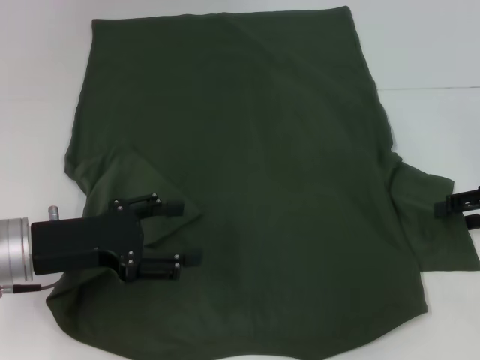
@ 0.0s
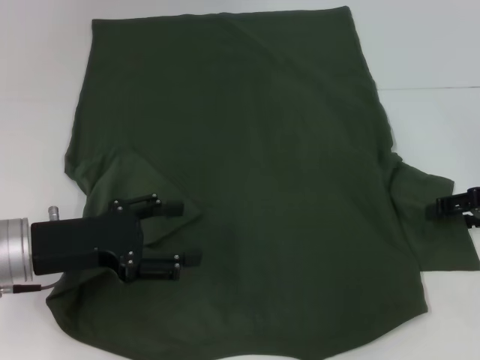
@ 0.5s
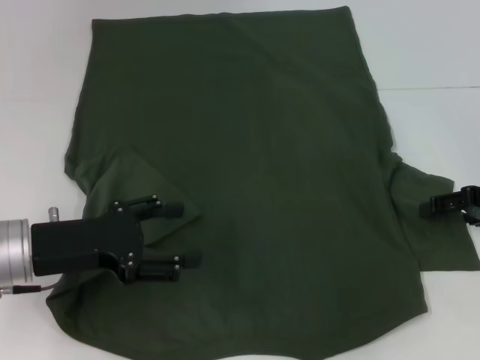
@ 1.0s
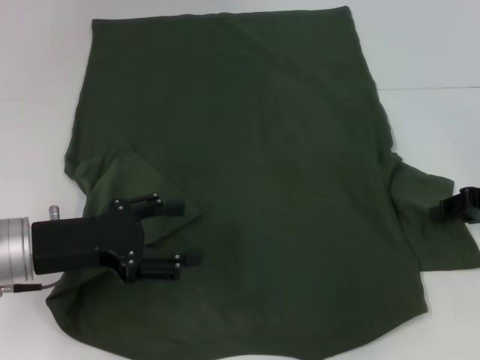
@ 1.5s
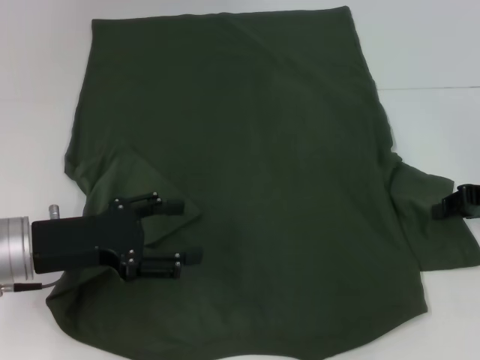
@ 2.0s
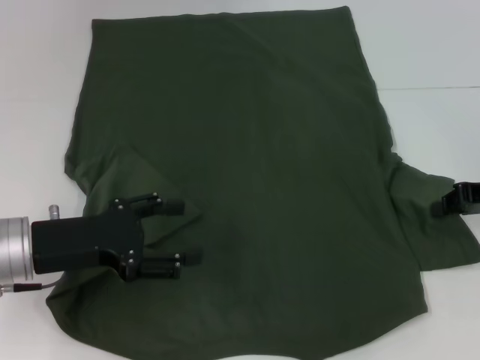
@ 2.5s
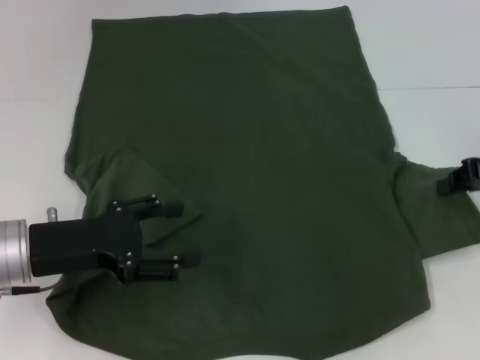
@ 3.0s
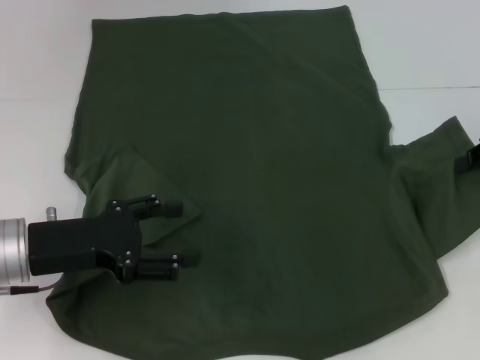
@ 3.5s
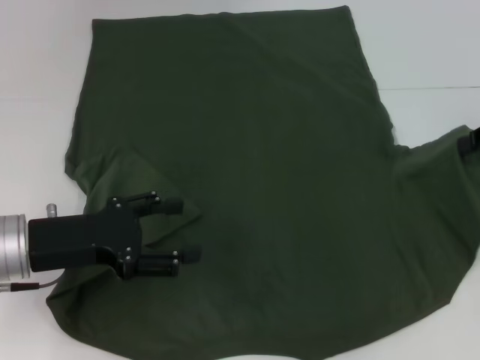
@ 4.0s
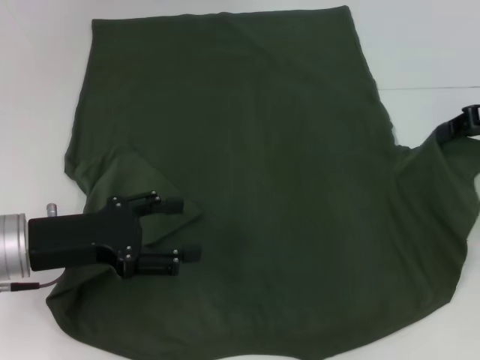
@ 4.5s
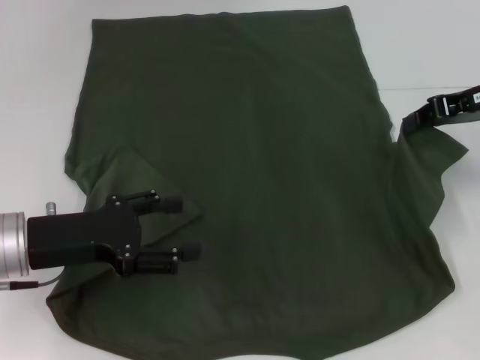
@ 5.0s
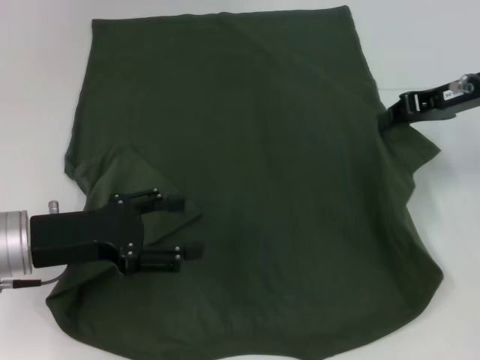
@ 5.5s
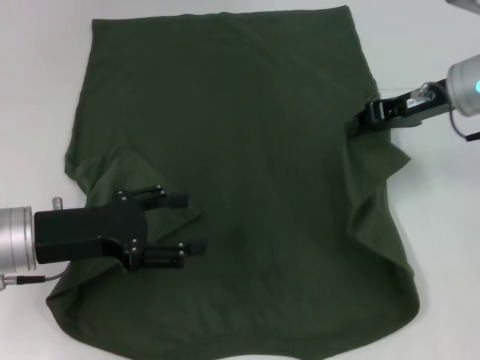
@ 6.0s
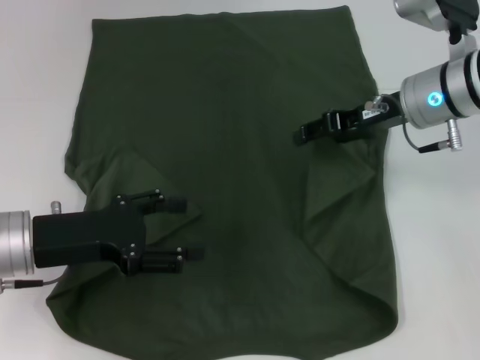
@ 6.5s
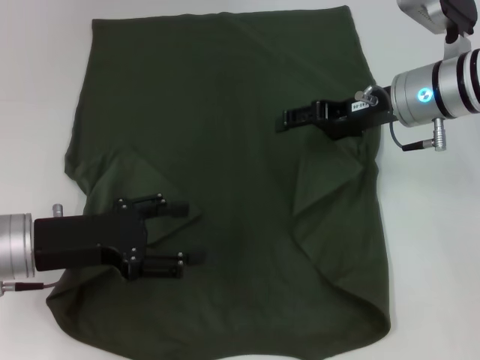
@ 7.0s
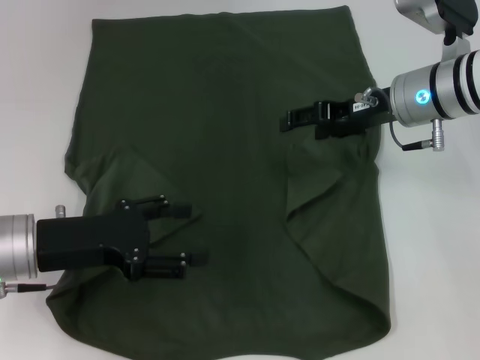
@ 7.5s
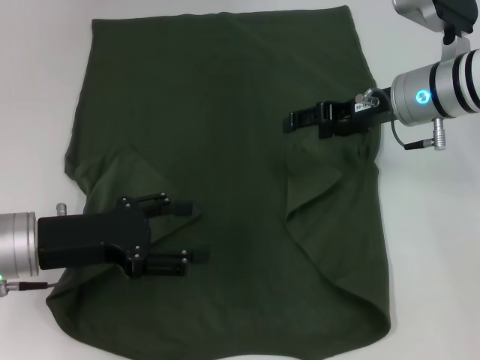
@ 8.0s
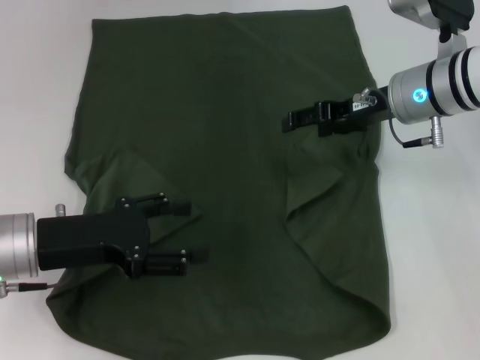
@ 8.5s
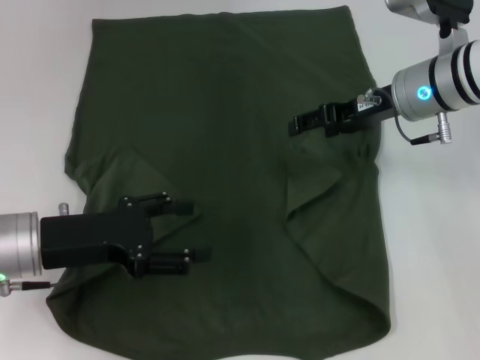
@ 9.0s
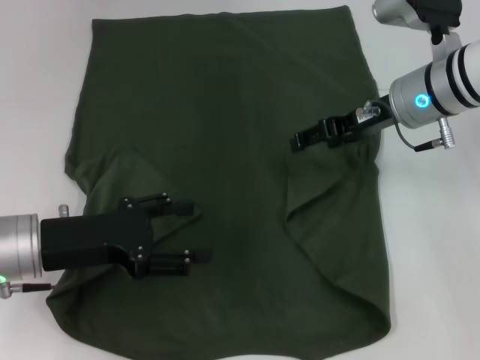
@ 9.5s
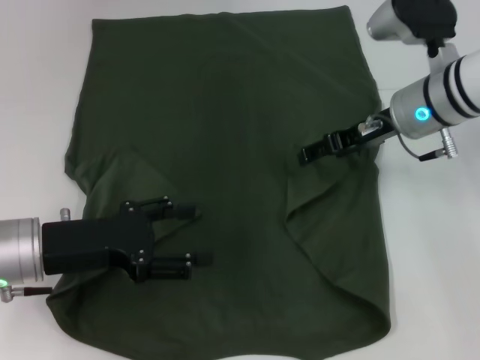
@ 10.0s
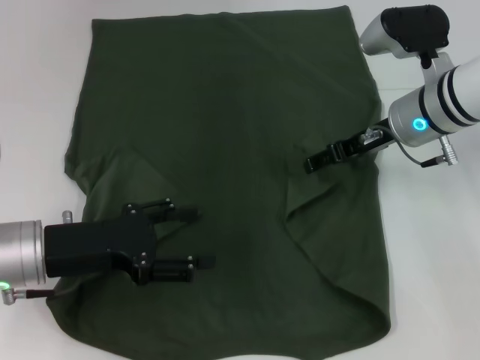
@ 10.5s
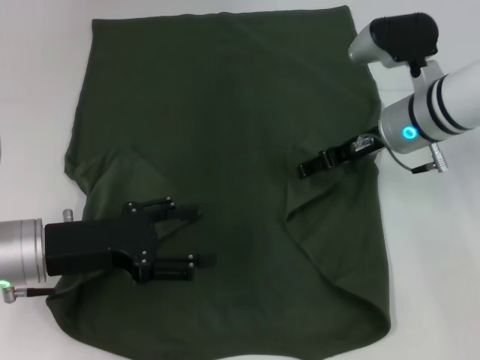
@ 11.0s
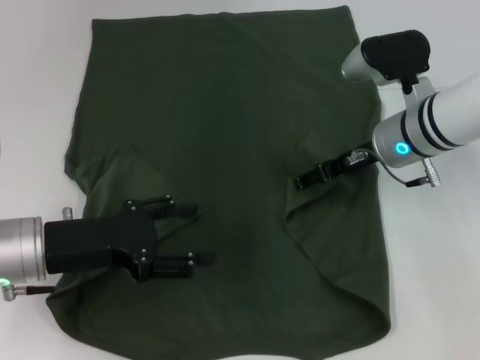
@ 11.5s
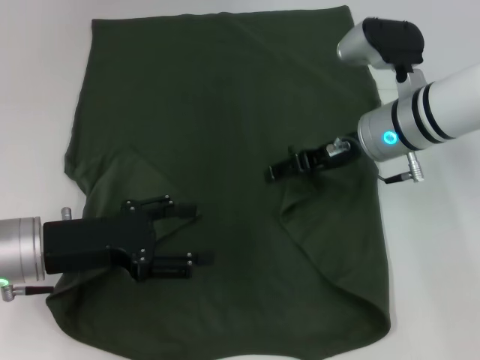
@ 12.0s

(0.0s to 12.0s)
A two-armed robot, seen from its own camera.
2.0s - 4.0s: The right gripper moves upward, approximately 5 cm.
4.0s - 6.0s: The right gripper goes approximately 10 cm to the left.
6.0s - 8.0s: The right gripper changes place by approximately 5 cm, and opens.
8.0s - 10.0s: There are only small adjustments of the grippers.
10.0s - 12.0s: The grippers stay close to where they were, moving slightly.

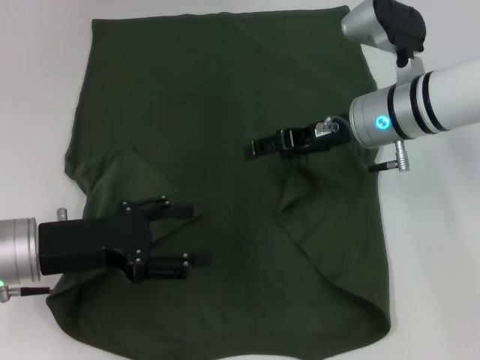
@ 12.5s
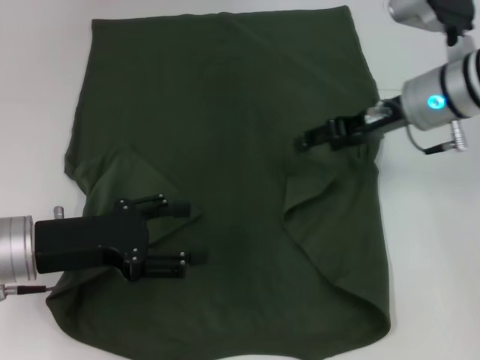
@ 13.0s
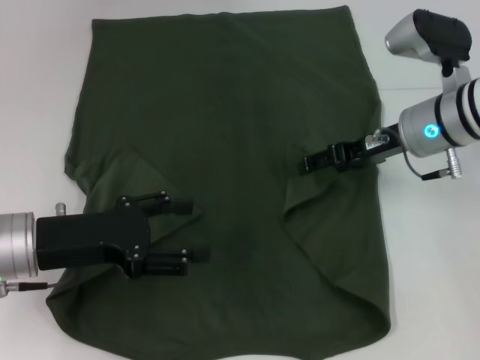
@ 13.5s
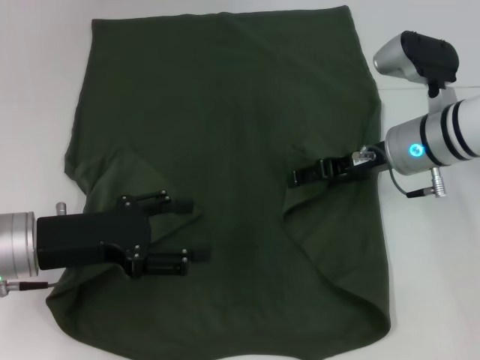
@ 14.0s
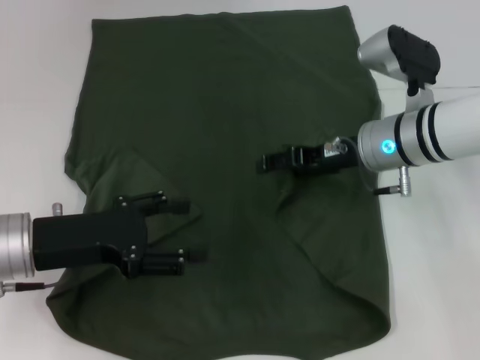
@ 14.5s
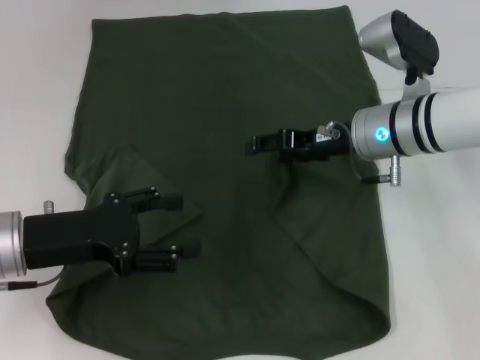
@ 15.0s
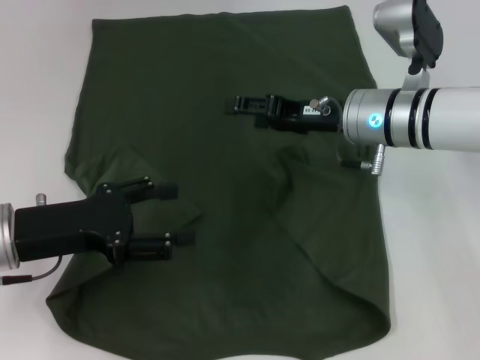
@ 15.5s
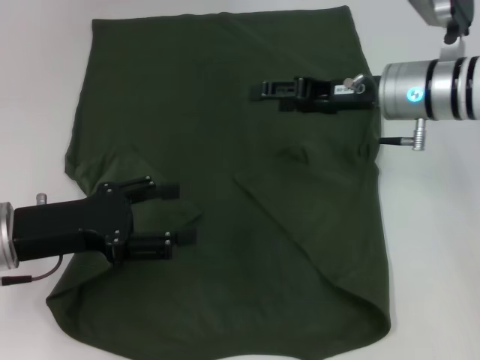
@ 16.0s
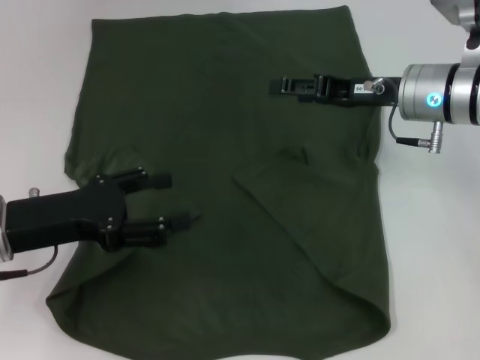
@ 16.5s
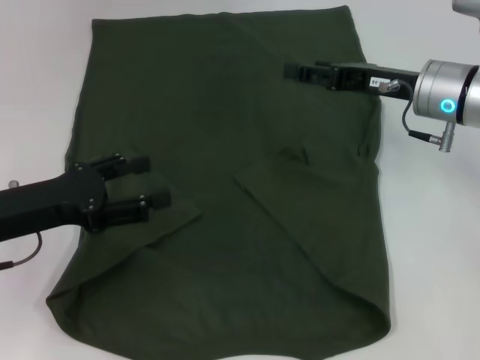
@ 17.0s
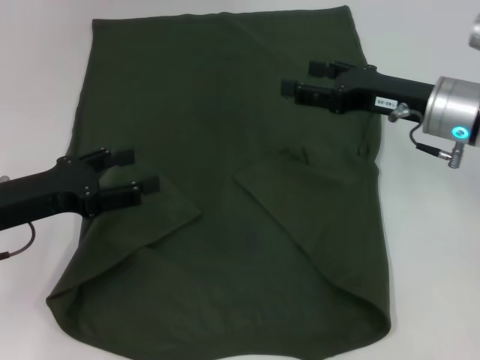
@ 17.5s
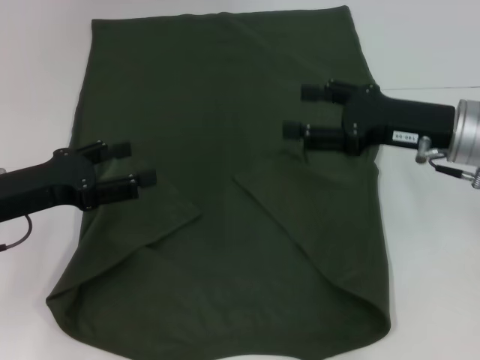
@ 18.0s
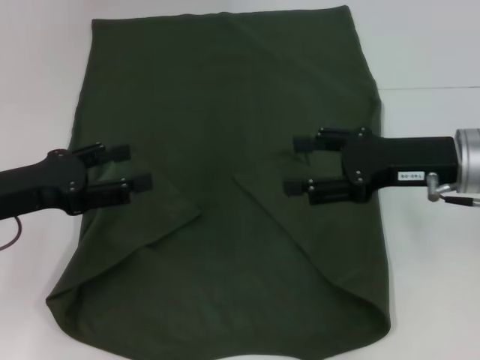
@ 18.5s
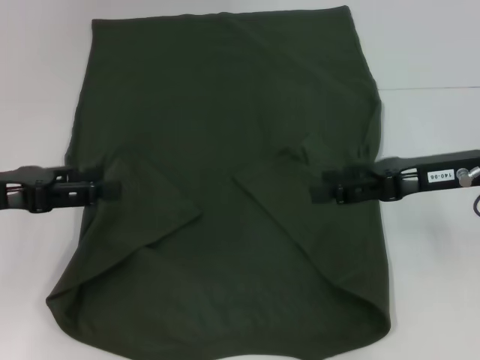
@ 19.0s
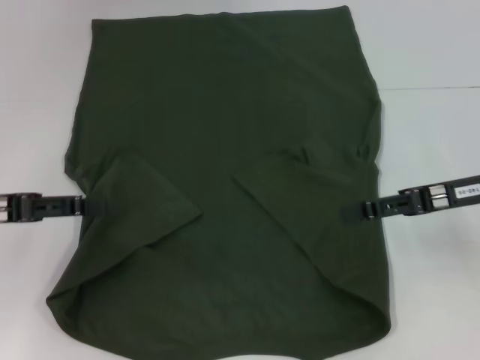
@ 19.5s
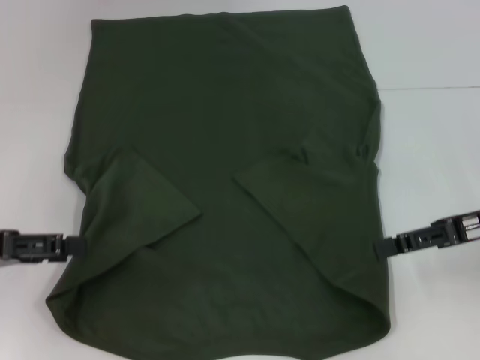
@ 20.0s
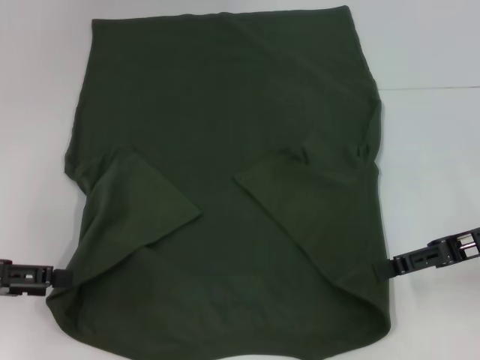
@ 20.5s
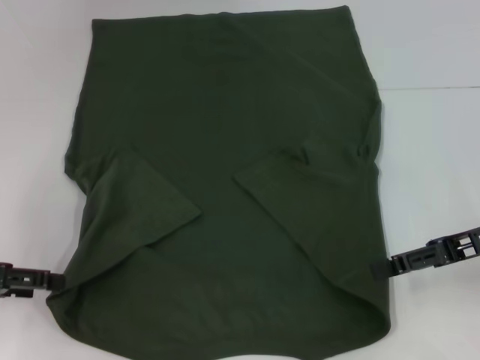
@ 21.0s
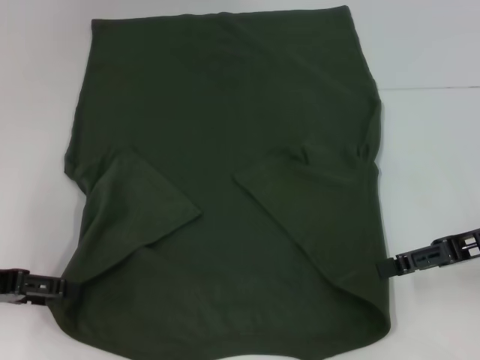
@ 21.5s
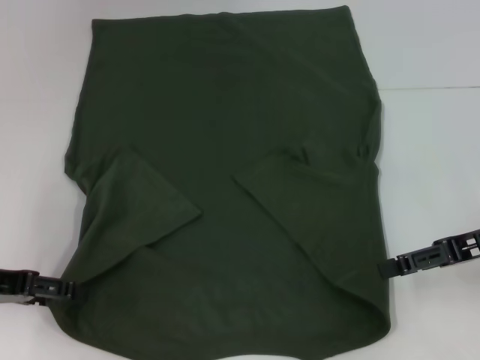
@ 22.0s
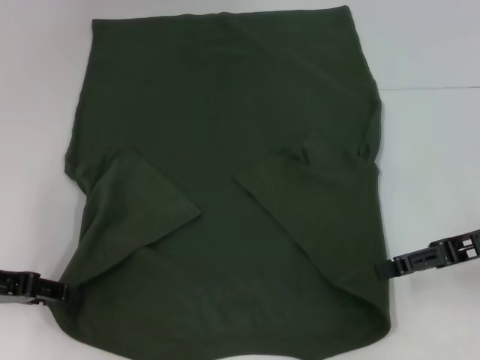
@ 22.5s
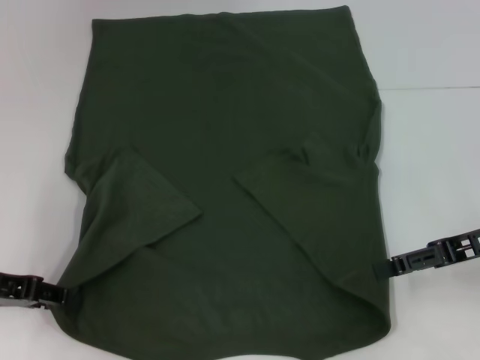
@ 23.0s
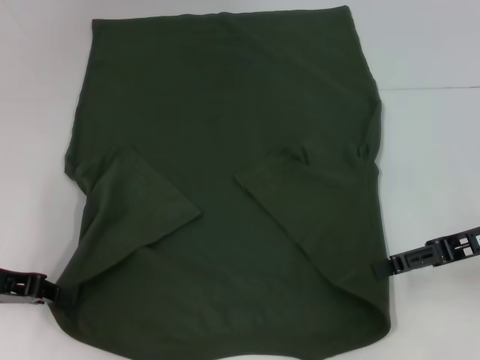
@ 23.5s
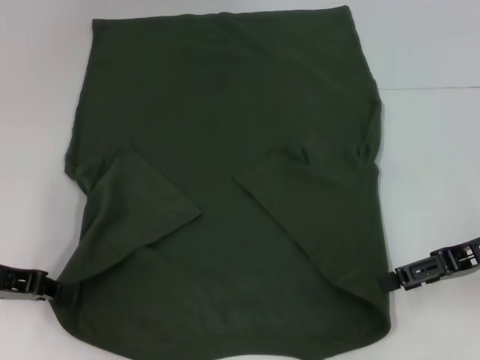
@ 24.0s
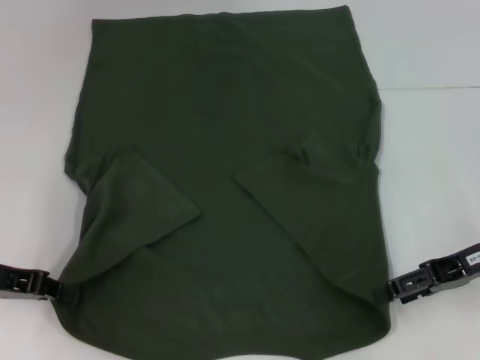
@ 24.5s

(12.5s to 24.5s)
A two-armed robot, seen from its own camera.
Step, 12.5s - 15.5s: Fold the bottom right sleeve with your right hand.
Step, 16.0s - 22.5s: Grab the bottom left corner with your left hand.
12.5s - 14.5s: There are only small adjustments of the grippers.
14.5s - 16.5s: The right gripper changes place by some 5 cm.
16.5s - 18.5s: The right gripper goes about 10 cm backward.
18.5s - 20.5s: The left gripper goes some 5 cm to the left. Meanwhile the right gripper heads to the right, covering some 5 cm.
20.5s - 22.5s: There are only small adjustments of the grippers.
22.5s - 24.5s: The left gripper closes.

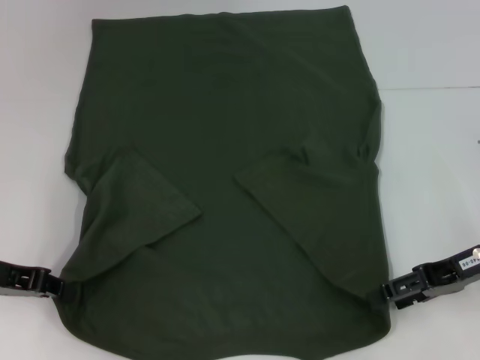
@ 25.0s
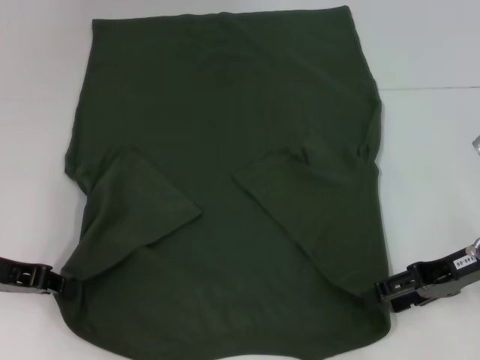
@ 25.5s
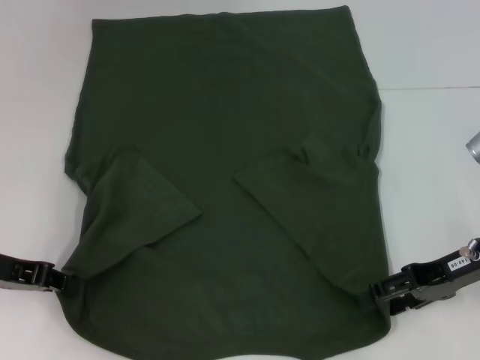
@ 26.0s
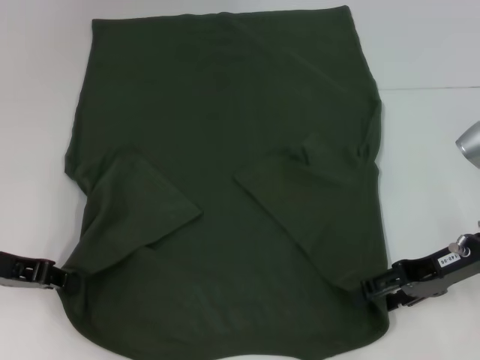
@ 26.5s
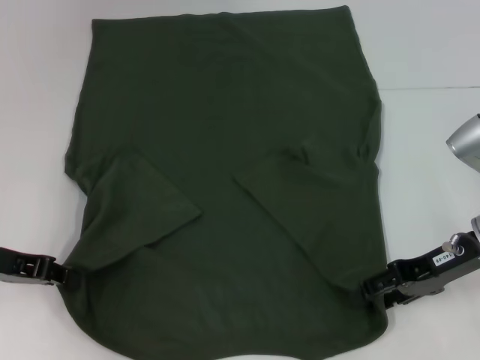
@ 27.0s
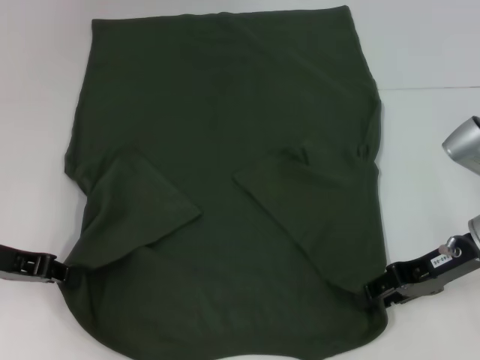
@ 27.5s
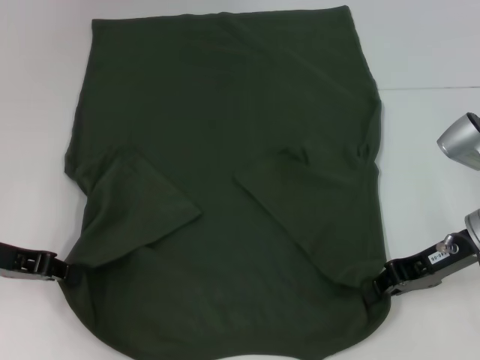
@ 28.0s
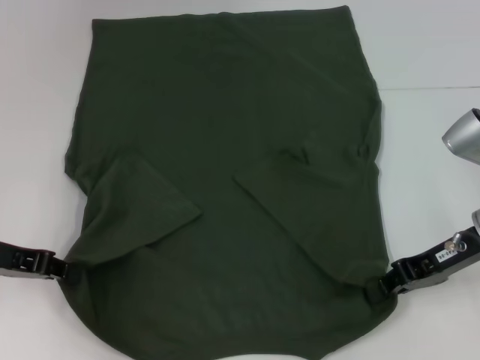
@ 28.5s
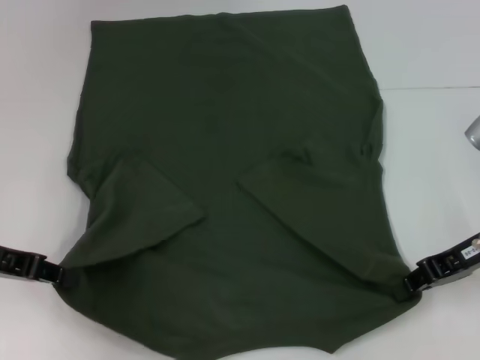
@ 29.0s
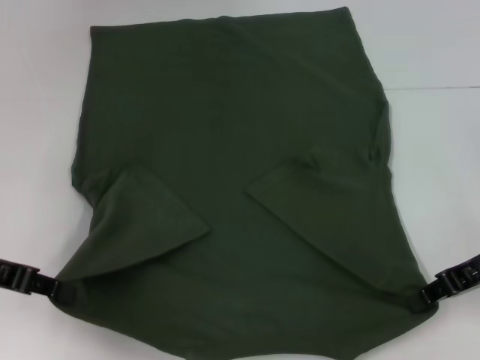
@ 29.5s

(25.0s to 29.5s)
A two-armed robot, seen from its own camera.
Step, 25.0s - 28.0s: Grab the bottom right corner with your right hand.
25.0s - 27.0s: The grippers stay close to where they were, moving slightly.
27.0s - 29.5s: The right gripper closes up.
